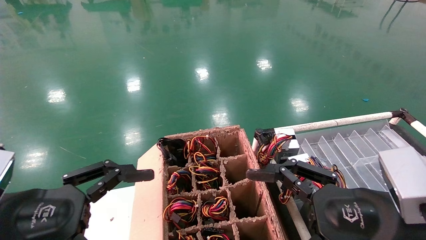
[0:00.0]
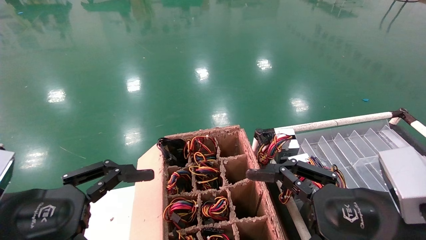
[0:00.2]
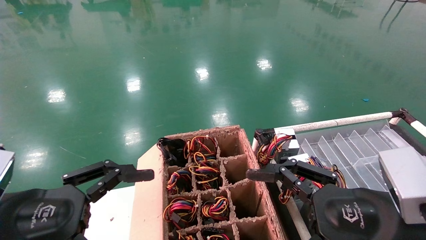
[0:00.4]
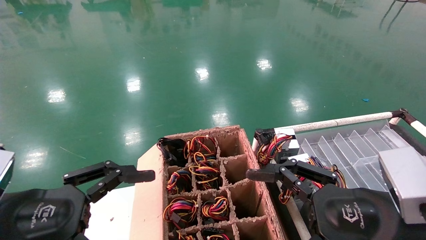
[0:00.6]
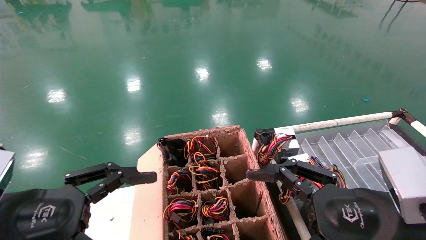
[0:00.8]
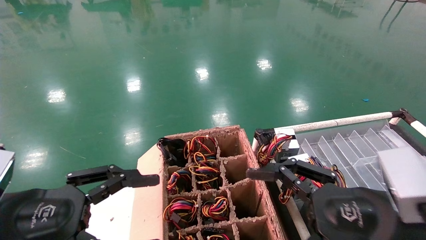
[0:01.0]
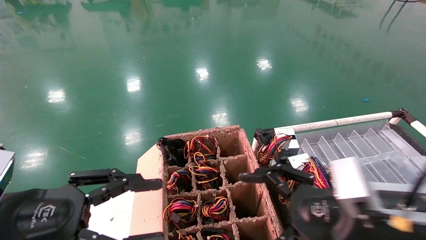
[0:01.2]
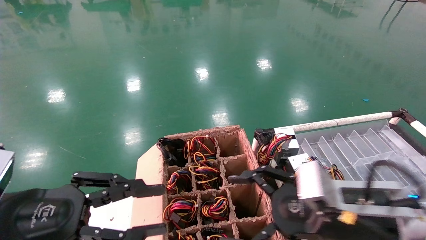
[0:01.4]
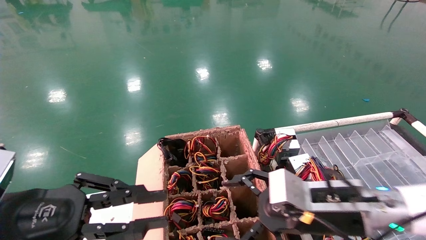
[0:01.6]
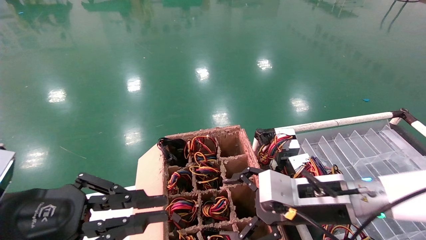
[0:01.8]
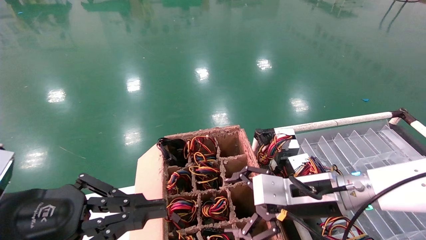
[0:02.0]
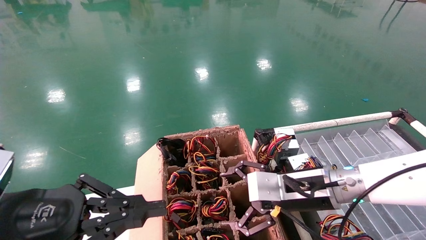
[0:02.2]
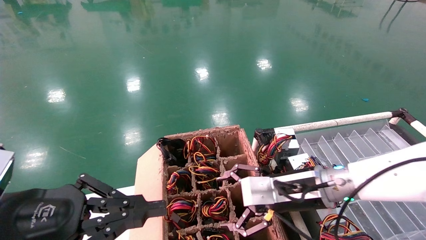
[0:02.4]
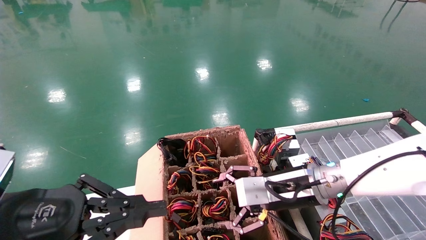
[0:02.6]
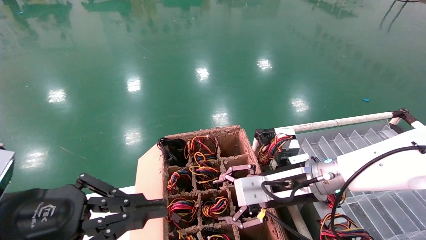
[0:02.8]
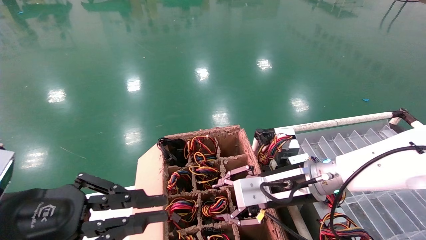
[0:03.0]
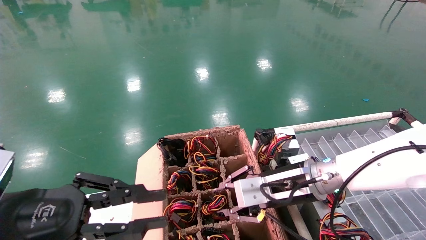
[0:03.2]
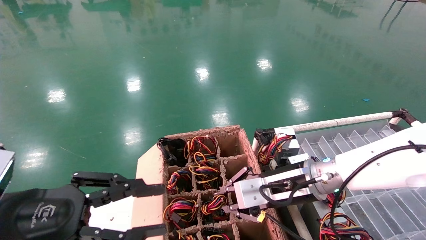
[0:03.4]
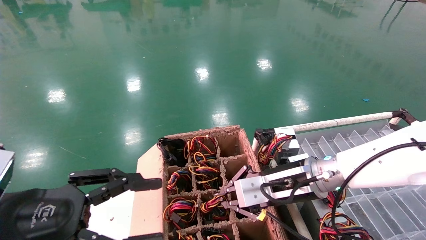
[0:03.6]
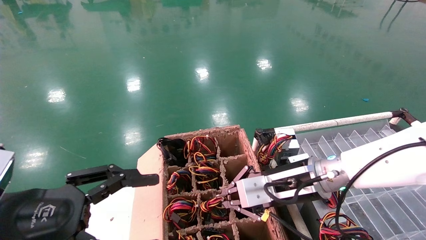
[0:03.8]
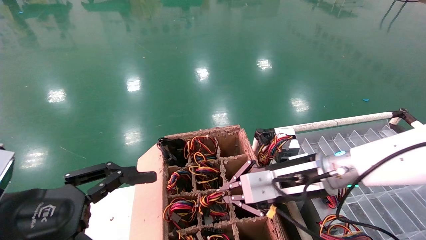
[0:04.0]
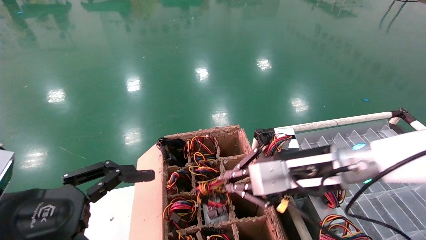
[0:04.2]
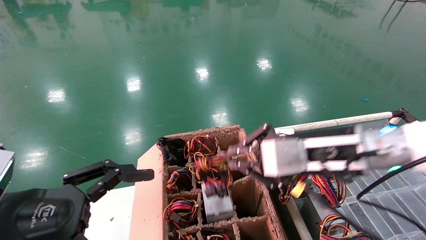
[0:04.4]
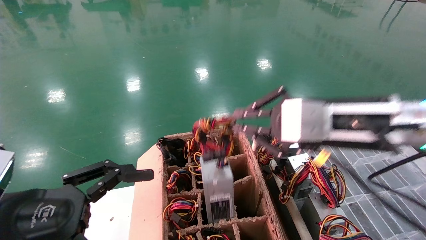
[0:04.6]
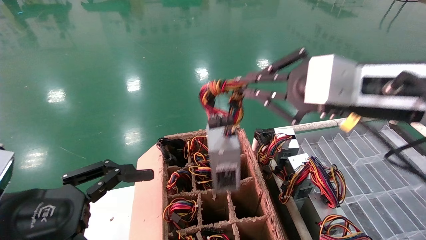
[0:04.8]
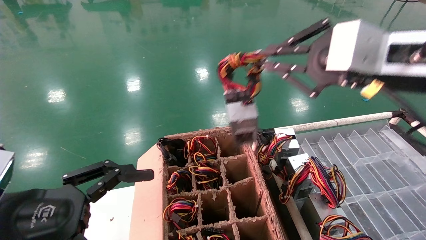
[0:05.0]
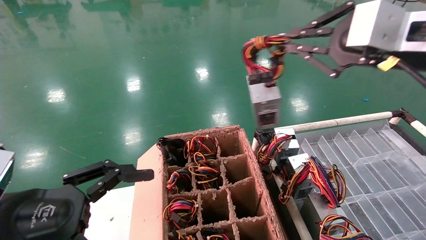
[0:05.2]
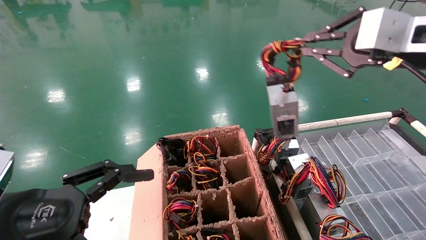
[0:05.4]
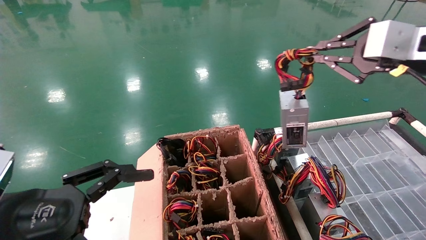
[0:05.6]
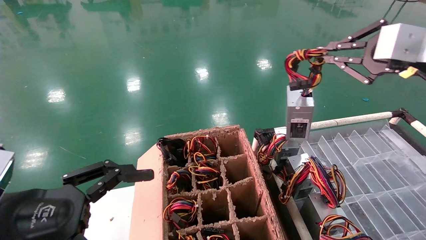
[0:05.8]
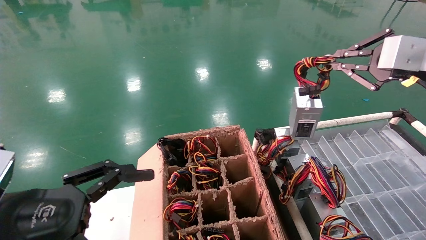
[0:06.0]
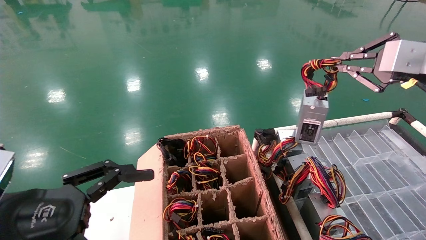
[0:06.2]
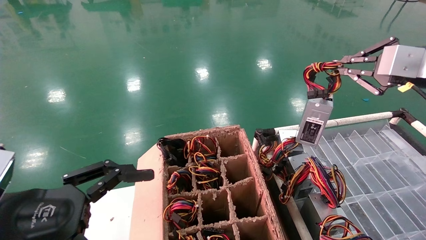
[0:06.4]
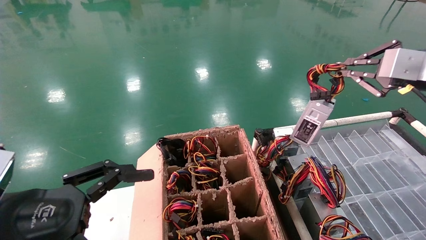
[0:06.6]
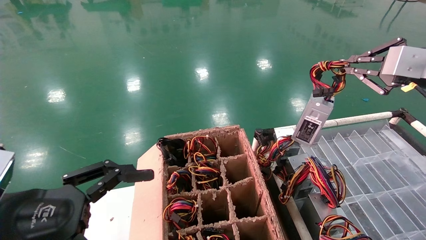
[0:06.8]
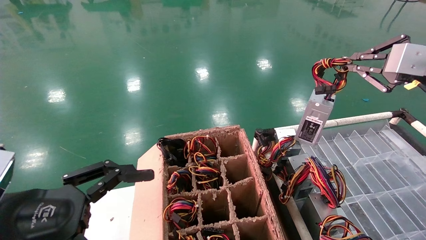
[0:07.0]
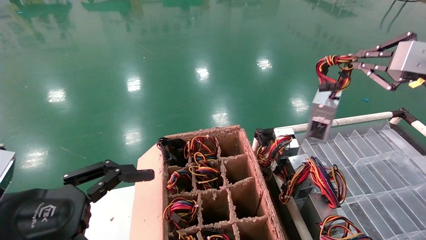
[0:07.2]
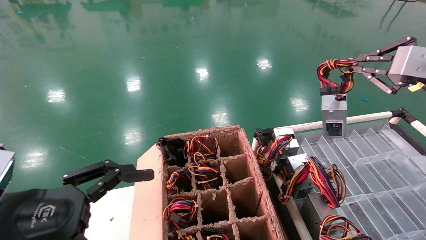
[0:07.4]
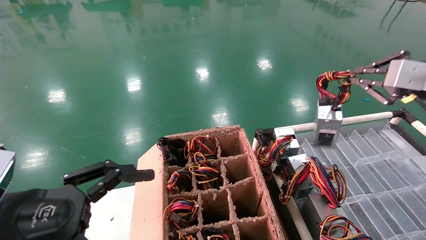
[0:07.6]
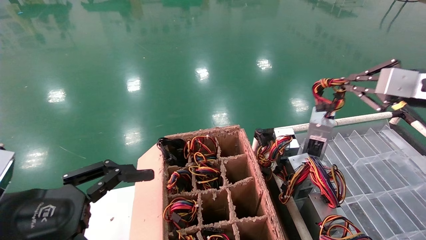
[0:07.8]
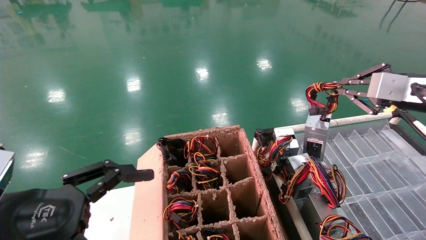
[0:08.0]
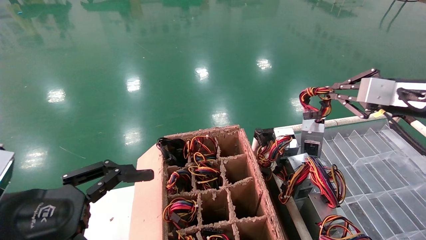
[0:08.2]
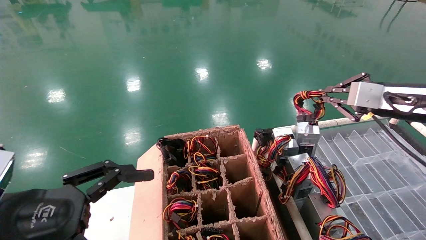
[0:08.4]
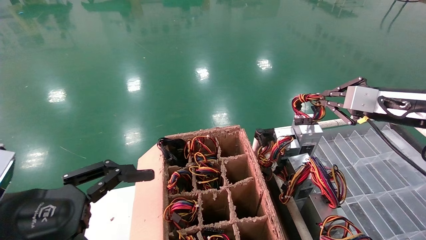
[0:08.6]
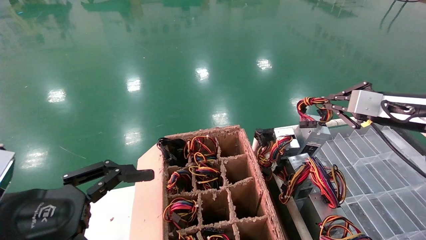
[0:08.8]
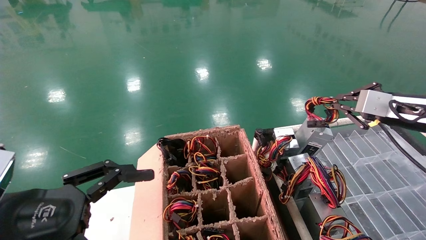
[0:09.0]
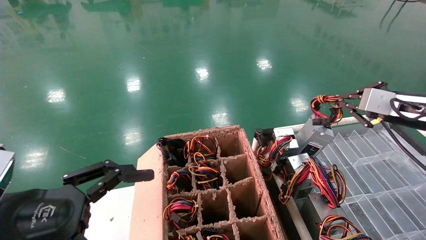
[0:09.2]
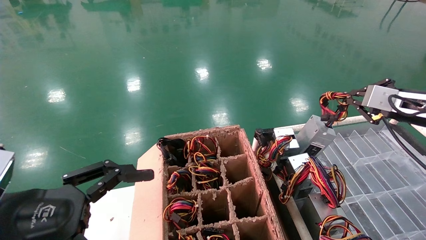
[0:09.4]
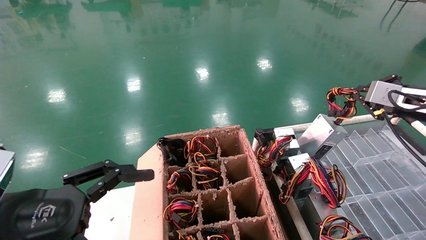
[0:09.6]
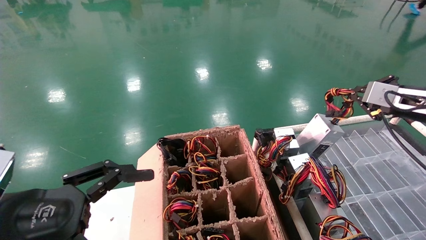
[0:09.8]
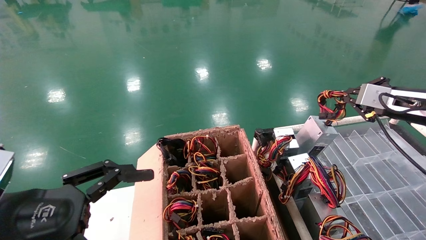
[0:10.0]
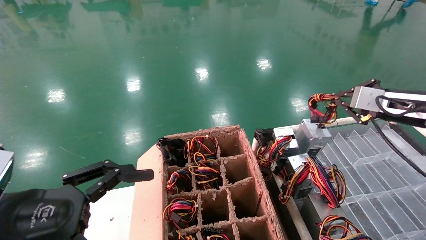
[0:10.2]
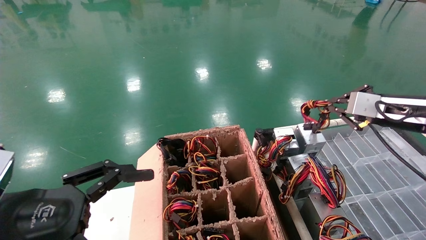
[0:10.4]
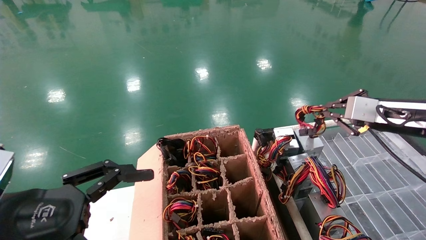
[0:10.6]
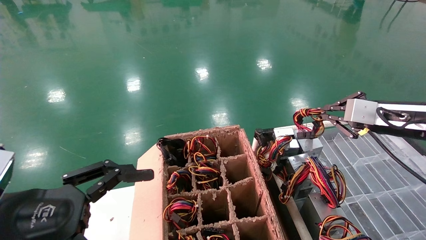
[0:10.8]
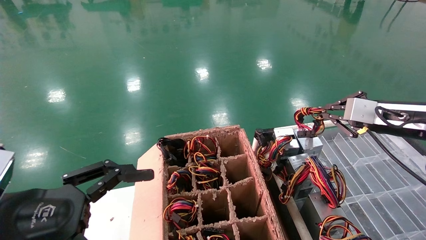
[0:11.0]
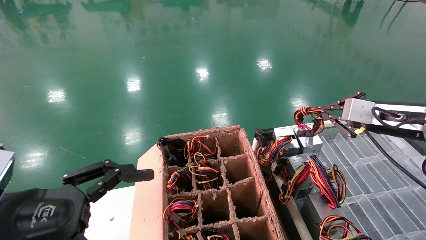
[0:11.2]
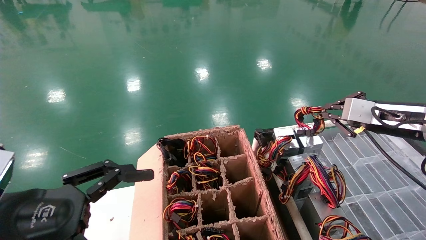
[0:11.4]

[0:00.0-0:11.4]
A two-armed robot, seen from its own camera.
Step, 0:01.2 to 0:03.8: Grab and lift the power supply from the large box.
0:00.0 to 0:01.4: The right gripper shifts approximately 5 cm forward. The left gripper closes.
0:01.4 to 0:02.8: The left gripper closes up; the right gripper heads forward, covering roughly 10 cm.
0:02.8 to 0:04.2: The left gripper opens its fingers. The right gripper travels upward by approximately 5 cm, and closes up.
0:04.2 to 0:05.6: The right gripper is displaced upward and to the right by roughly 25 cm.
0:05.6 to 0:07.2: The right gripper shifts roughly 10 cm to the right.
0:07.2 to 0:08.6: The right gripper heads downward and forward, covering roughly 10 cm.
0:08.6 to 0:11.4: The grippers make only small movements.

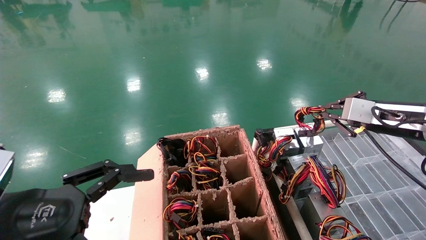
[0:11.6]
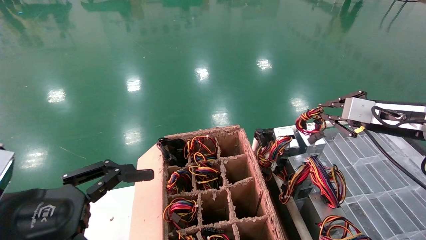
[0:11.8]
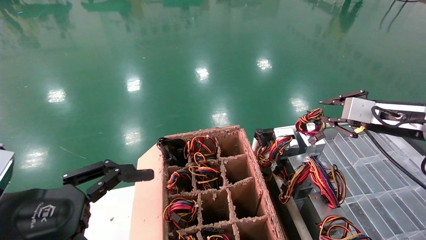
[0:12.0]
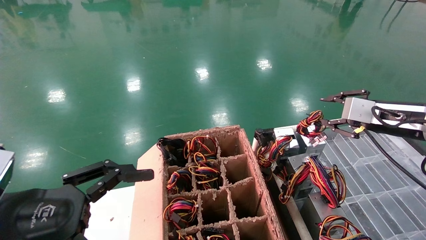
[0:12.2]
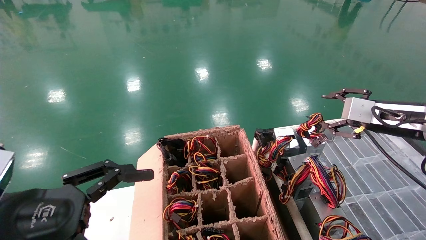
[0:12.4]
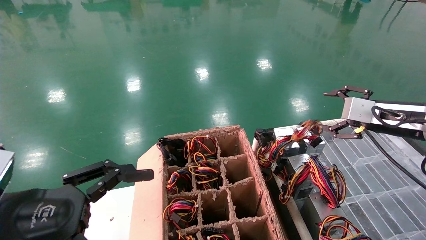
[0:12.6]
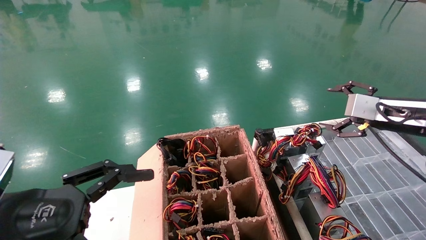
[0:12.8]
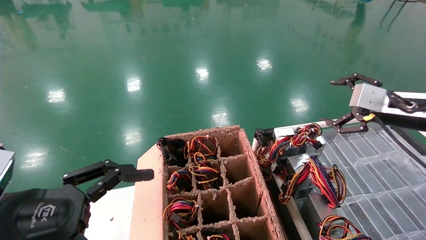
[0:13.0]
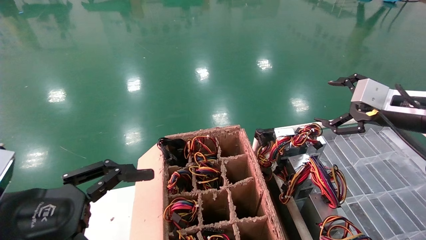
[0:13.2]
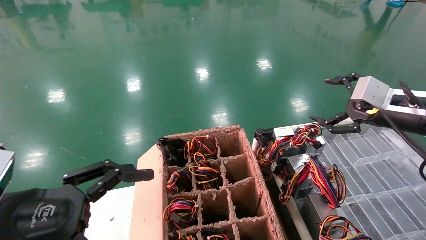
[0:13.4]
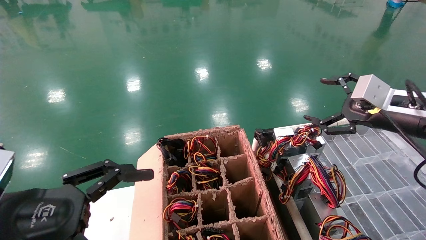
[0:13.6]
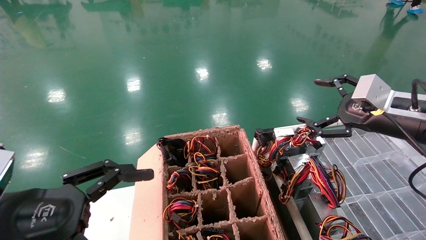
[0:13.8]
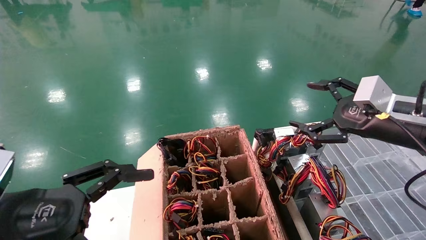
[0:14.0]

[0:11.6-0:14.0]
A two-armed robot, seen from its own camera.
0:11.6 to 0:12.8: The right gripper opens up.
0:12.8 to 0:14.0: The right gripper changes place by roughly 5 cm.

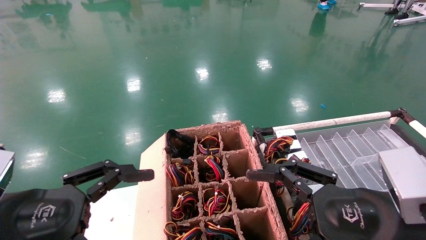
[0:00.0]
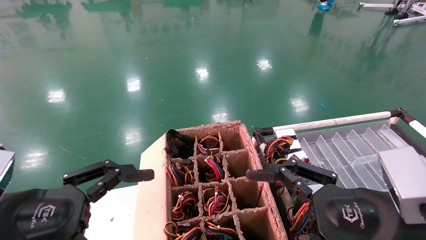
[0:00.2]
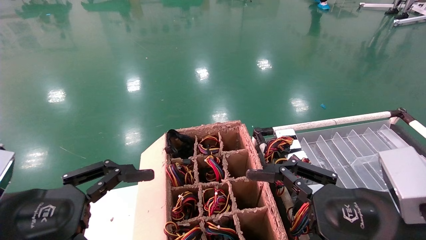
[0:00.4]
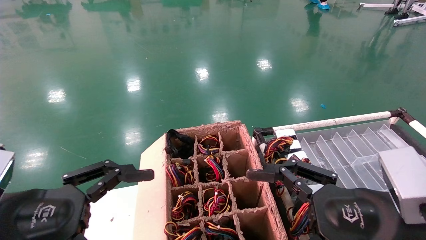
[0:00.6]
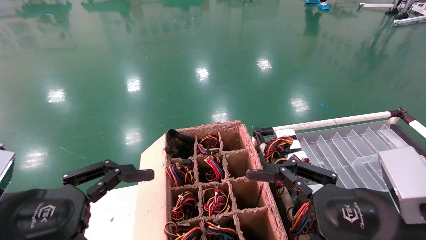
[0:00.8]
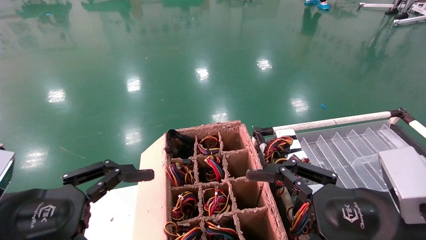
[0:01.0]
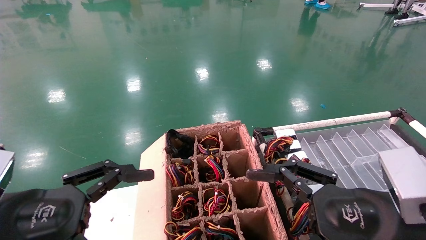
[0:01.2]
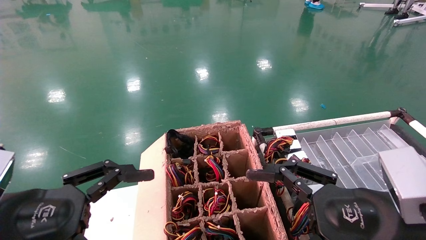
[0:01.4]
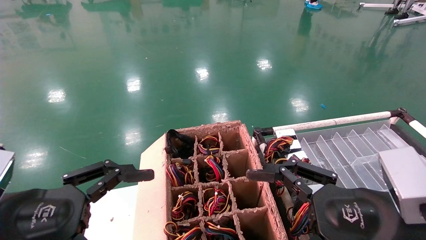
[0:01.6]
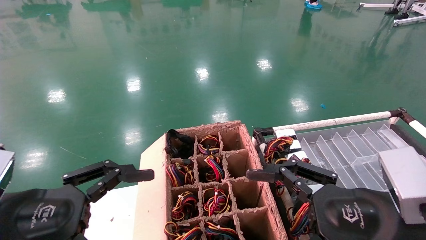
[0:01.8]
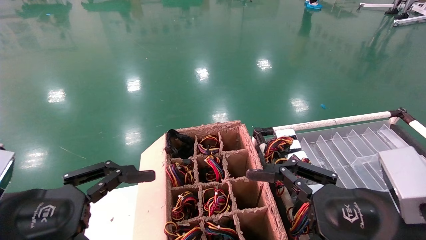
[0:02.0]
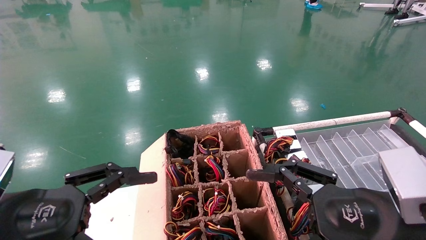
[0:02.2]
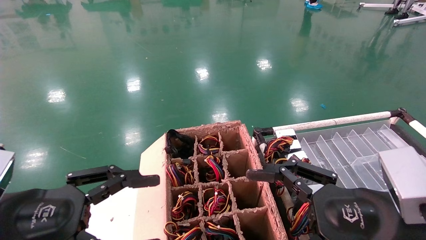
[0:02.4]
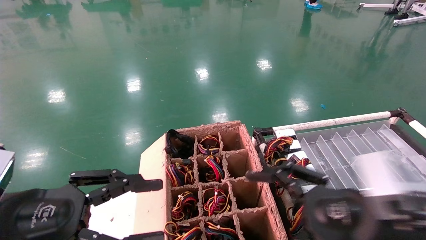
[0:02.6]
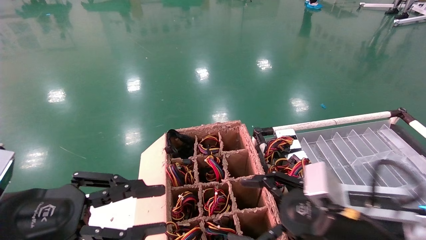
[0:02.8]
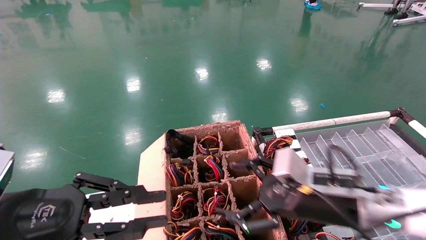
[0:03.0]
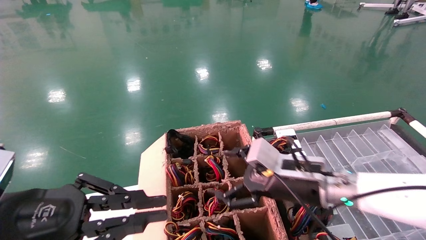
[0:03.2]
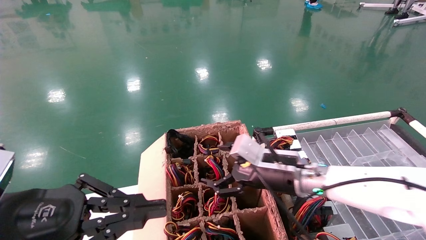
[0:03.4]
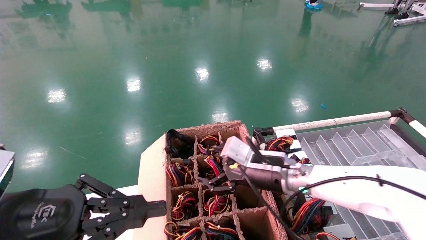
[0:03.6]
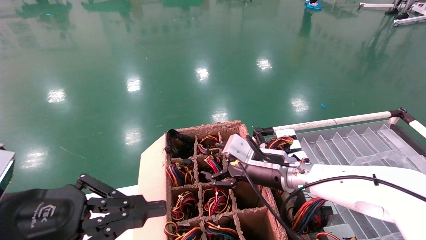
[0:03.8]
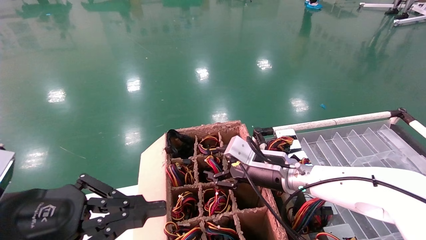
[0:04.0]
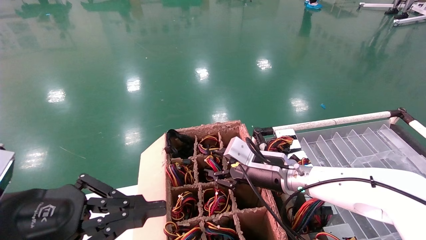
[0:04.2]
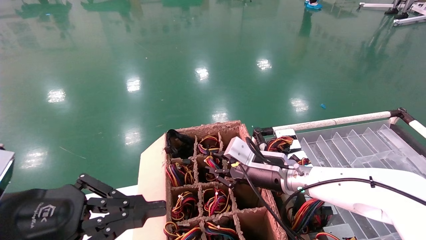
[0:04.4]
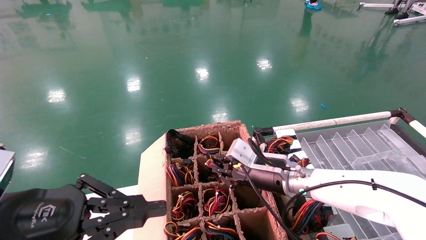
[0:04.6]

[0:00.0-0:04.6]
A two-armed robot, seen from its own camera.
0:00.0 to 0:01.6: Neither gripper changes place.
0:01.6 to 0:03.0: The right gripper travels forward by roughly 10 cm. The left gripper closes up.
0:03.0 to 0:04.6: The right gripper travels forward and to the left by some 15 cm, and closes its fingers.
